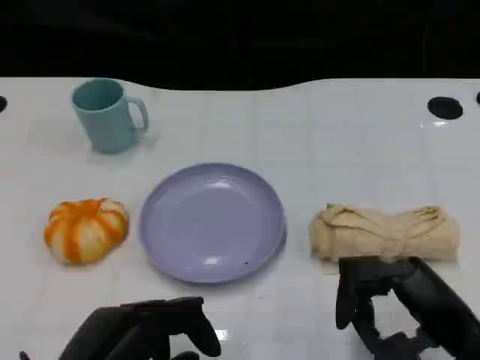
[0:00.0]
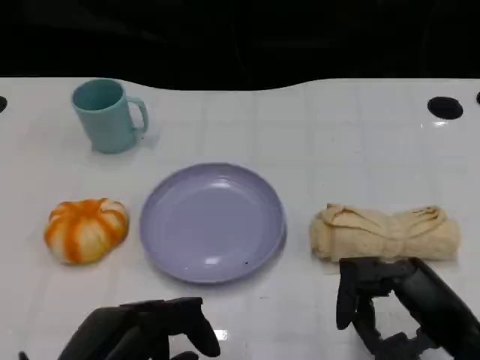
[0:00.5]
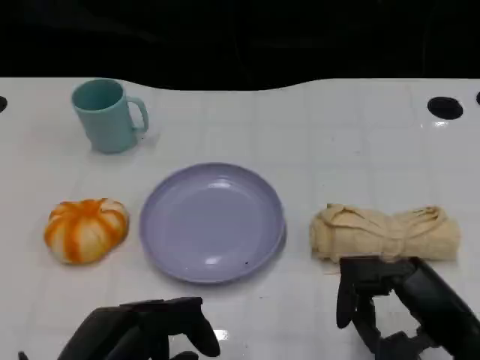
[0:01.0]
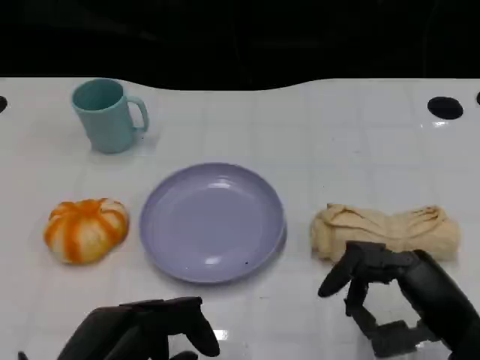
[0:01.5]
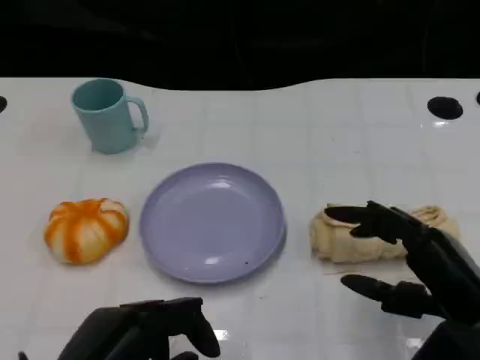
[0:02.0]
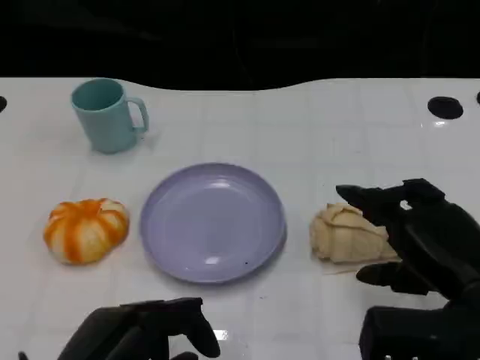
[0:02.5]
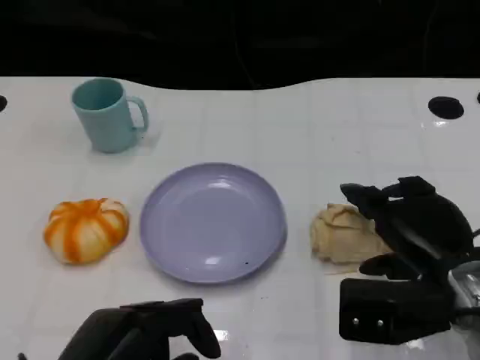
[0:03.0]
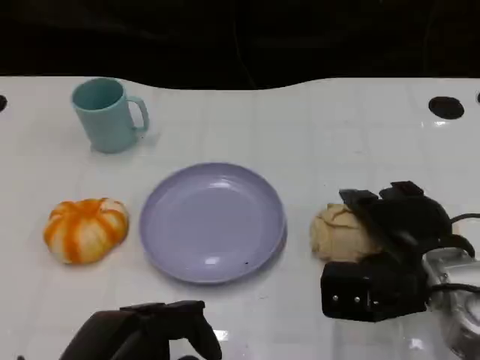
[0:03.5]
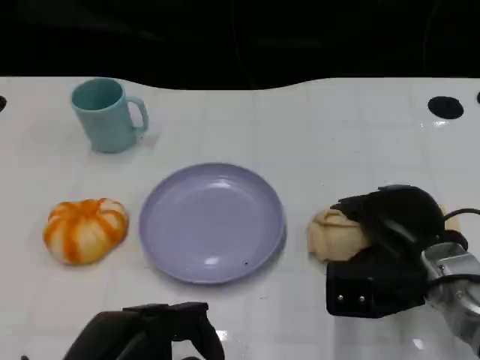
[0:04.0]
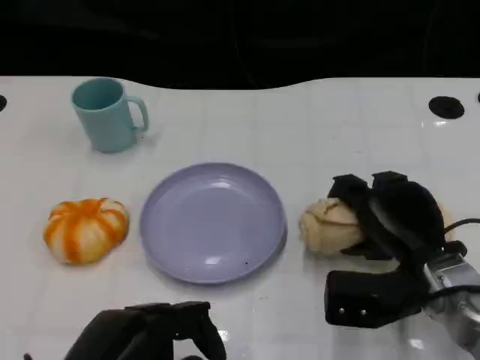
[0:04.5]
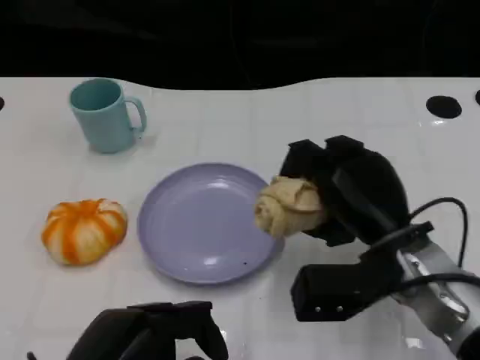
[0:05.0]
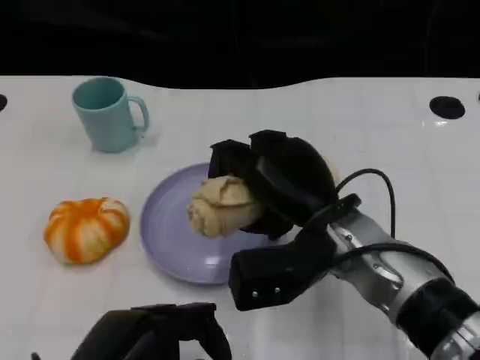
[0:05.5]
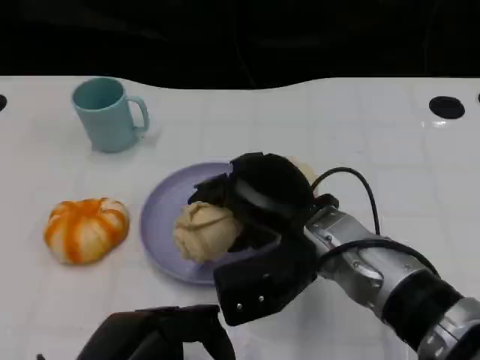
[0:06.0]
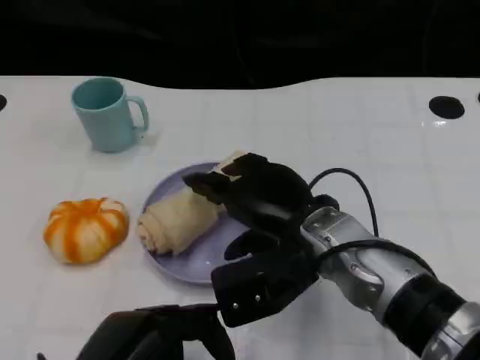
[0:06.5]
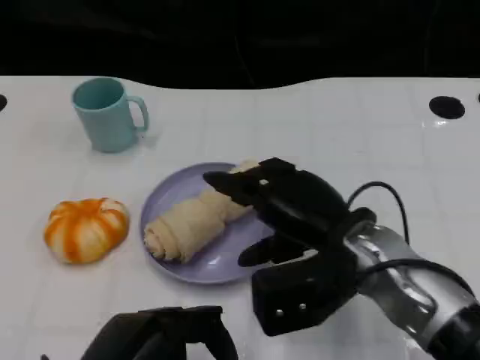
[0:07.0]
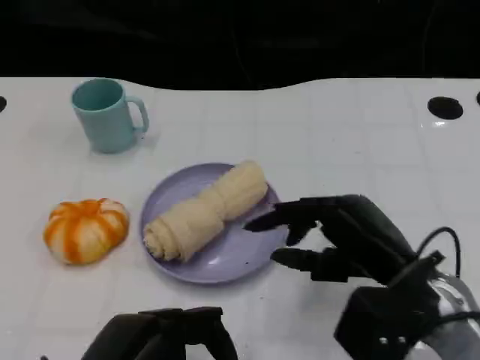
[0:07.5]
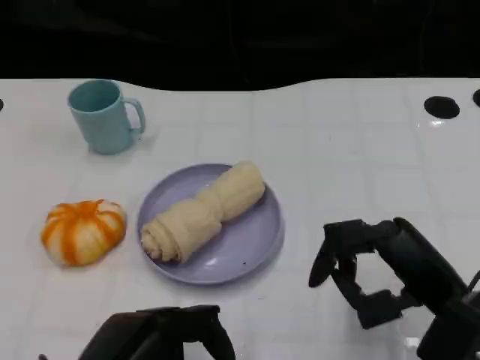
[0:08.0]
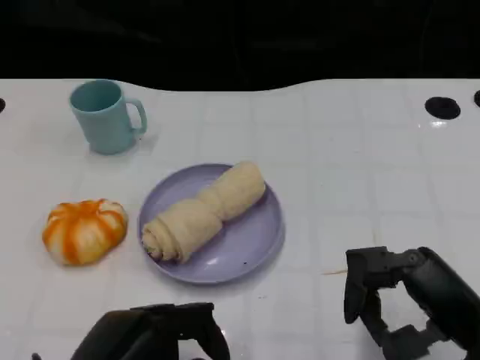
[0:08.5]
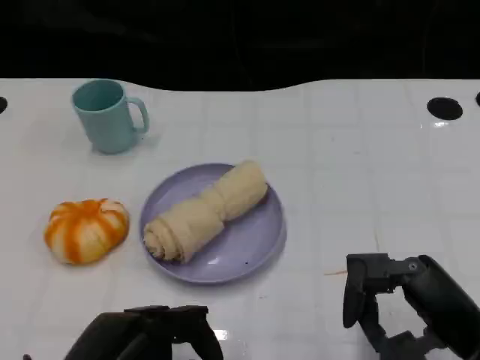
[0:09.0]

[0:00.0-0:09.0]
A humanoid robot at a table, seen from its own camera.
Task of the whole recording: Grasp the towel on the left side of the plate with the left hand and place it into the plate.
0:02.0 to 0:04.5: The right hand is displaced forward by about 10 cm.
0:04.5 to 0:07.0: The right hand goes about 10 cm to the left and upward.
0:07.0 to 0:09.0: The right hand travels to the right and backward by roughly 15 cm.
